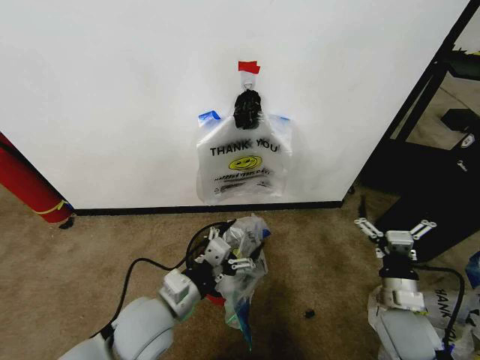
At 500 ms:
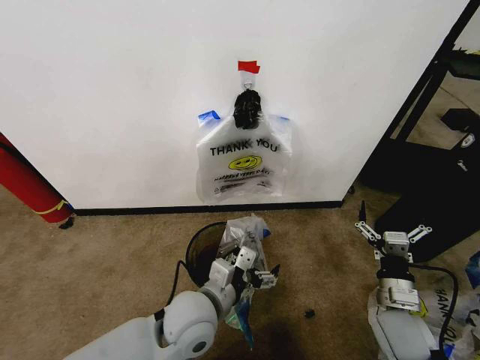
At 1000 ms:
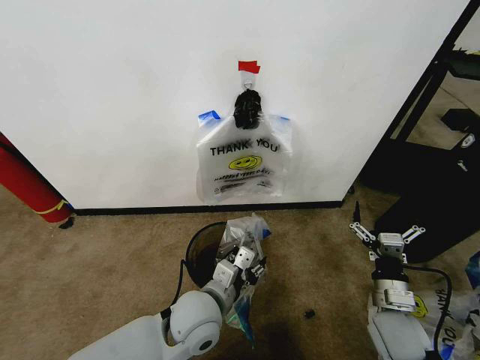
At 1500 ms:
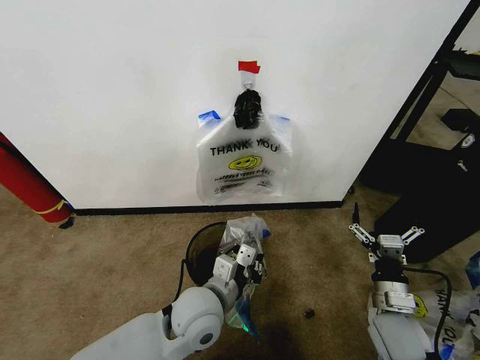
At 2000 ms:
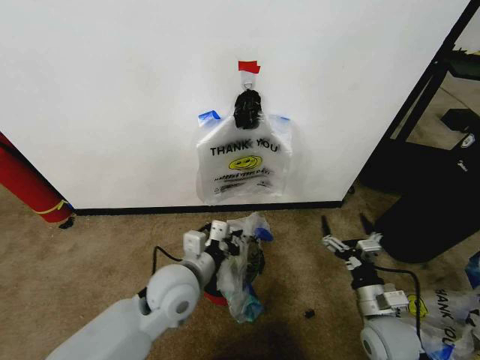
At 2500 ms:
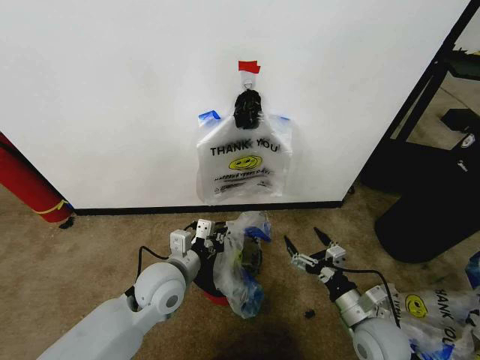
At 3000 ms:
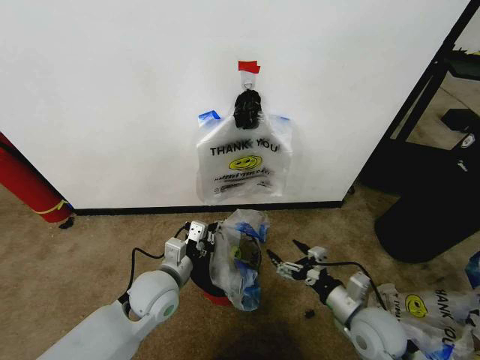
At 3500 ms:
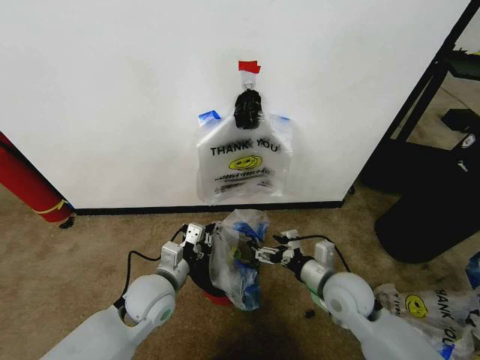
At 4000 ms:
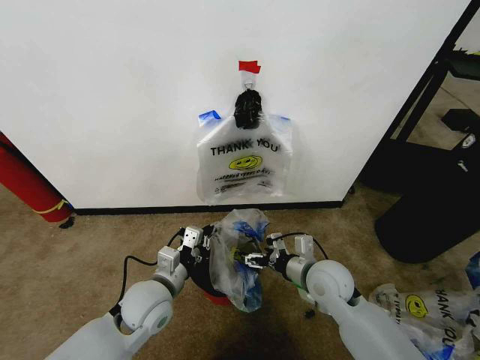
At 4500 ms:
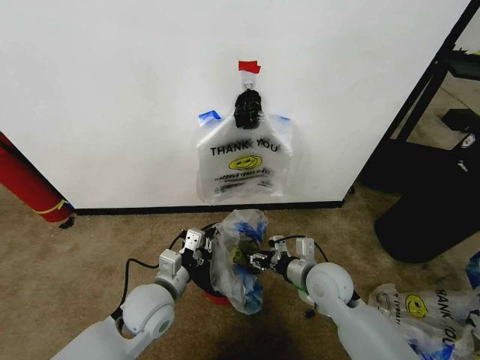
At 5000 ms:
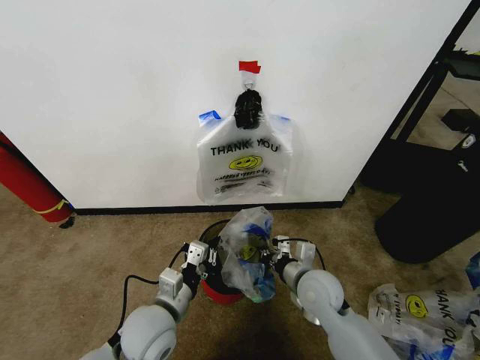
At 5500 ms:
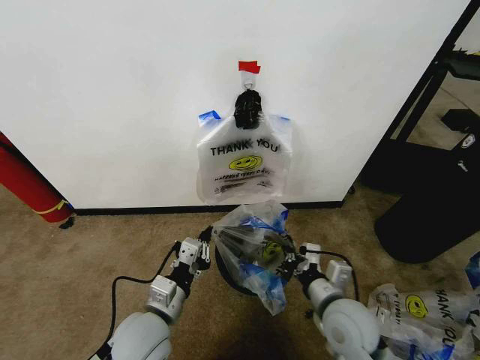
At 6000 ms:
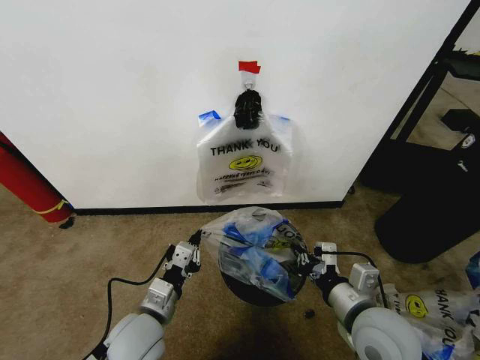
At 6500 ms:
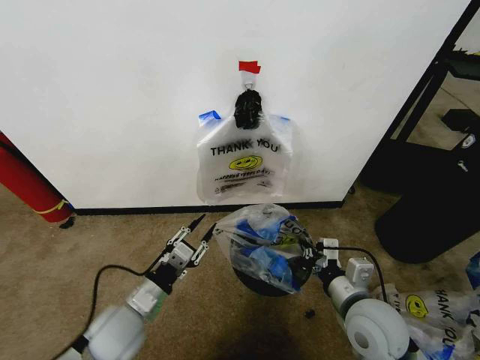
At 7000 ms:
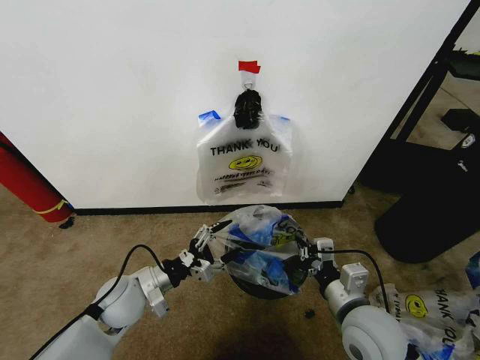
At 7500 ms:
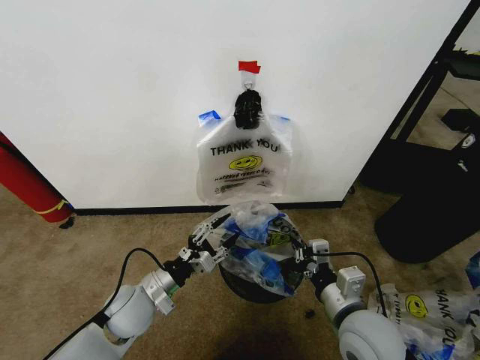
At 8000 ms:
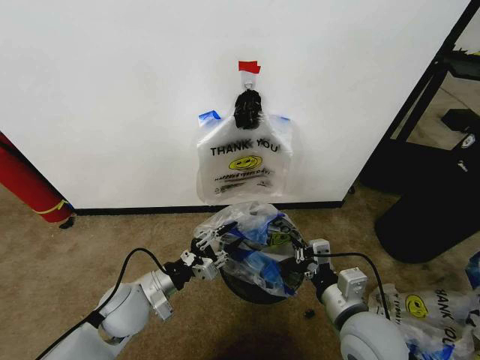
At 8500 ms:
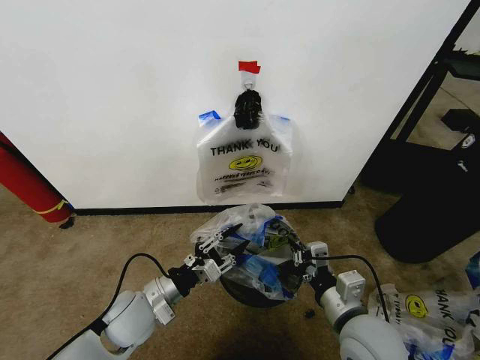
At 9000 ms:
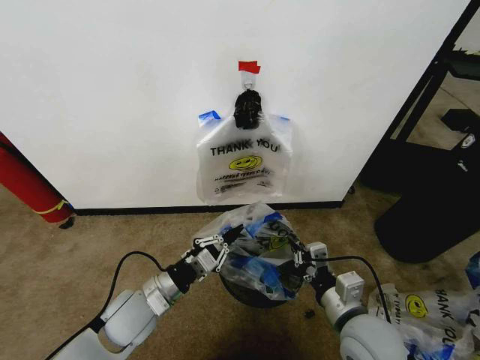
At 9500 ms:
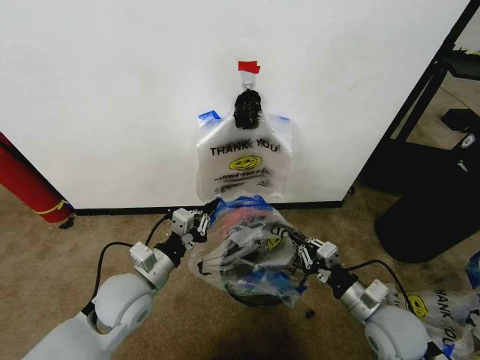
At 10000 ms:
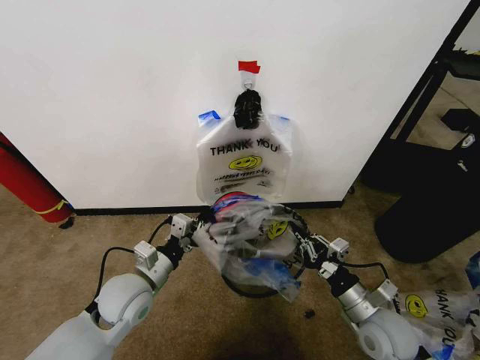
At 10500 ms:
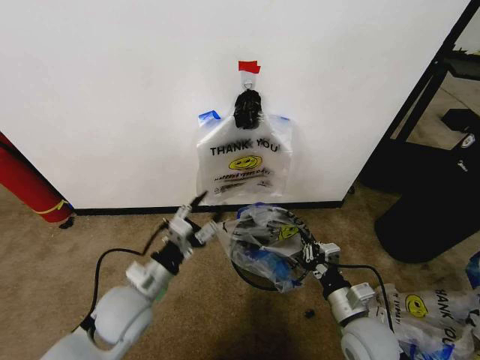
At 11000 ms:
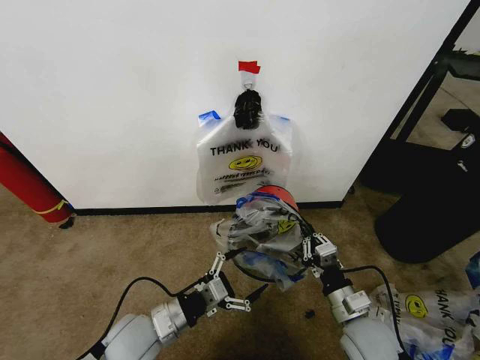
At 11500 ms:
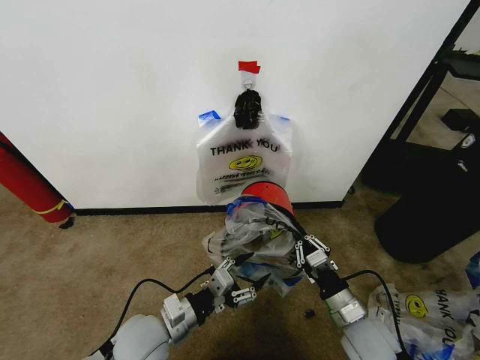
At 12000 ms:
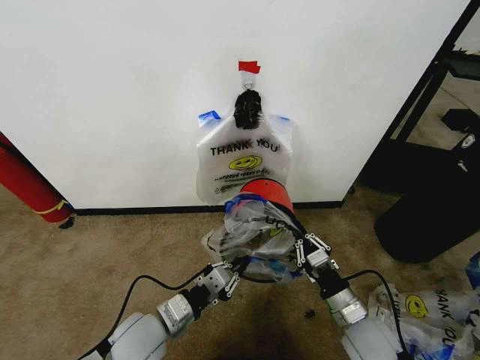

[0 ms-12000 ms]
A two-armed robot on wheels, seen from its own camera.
Task of the whole recording: Pick up the garbage bag from the wall and place it over the trash bin.
0 ms to 2000 ms: The left gripper heads forward, covering roughly 5 cm, and closes up.
2000 ms to 4000 ms: The left gripper travels to the left and downward by roughly 10 cm; the right gripper travels to the left, forward and upward by about 15 cm.
4000 ms to 6000 ms: The left gripper heads backward, covering about 5 cm. The right gripper is displaced backward and upward by about 15 cm, and closes.
6000 ms to 8000 ms: The left gripper moves forward, approximately 5 cm, and opens.
8000 ms to 10000 ms: The right gripper heads downward and to the right, covering roughly 10 cm. The left gripper closes its fingers.
10000 ms to 12000 ms: The left gripper travels backward by roughly 5 cm, and opens, then closes again.

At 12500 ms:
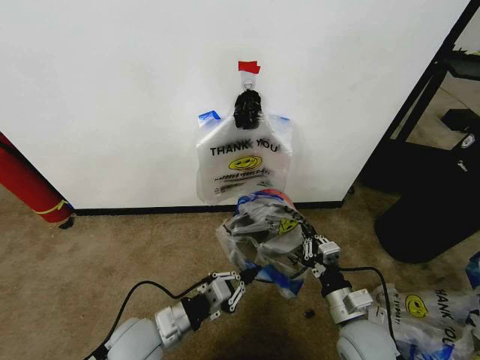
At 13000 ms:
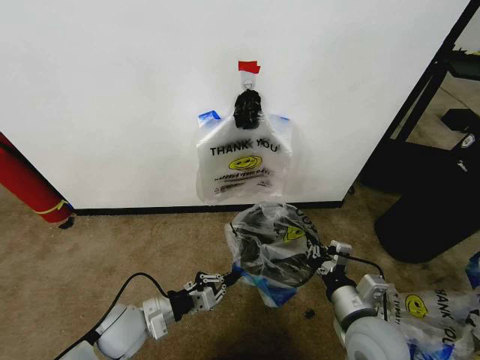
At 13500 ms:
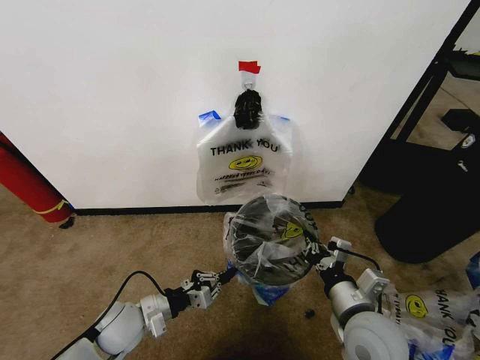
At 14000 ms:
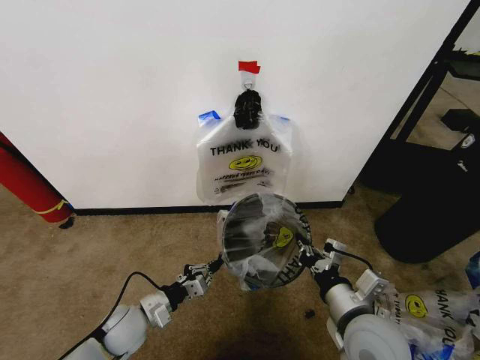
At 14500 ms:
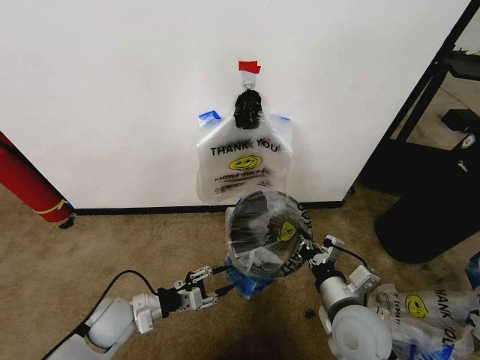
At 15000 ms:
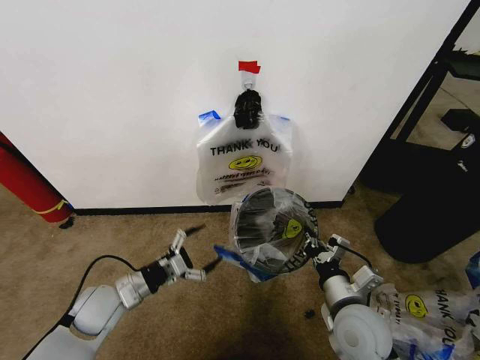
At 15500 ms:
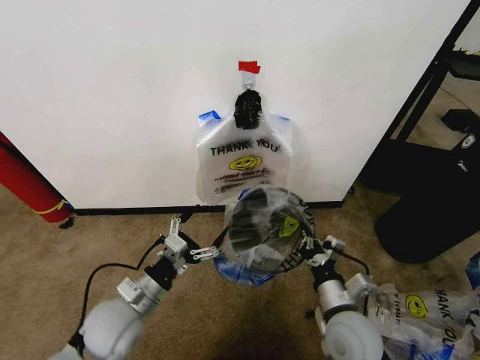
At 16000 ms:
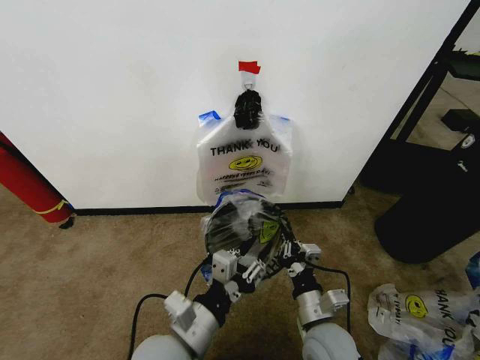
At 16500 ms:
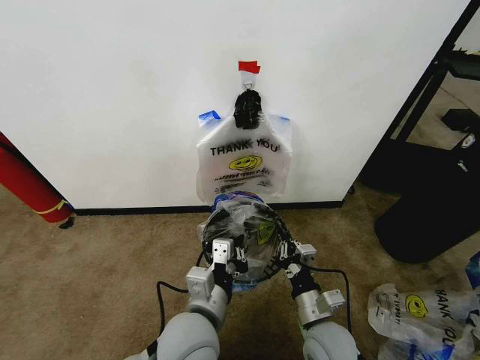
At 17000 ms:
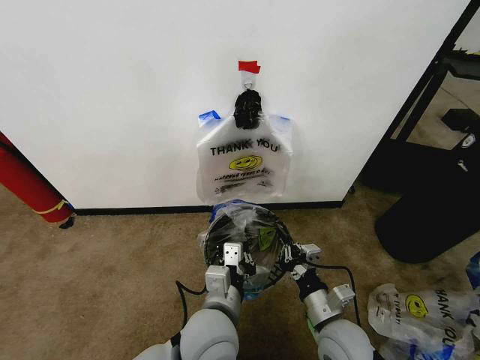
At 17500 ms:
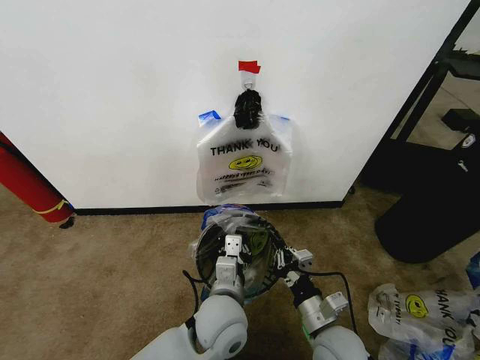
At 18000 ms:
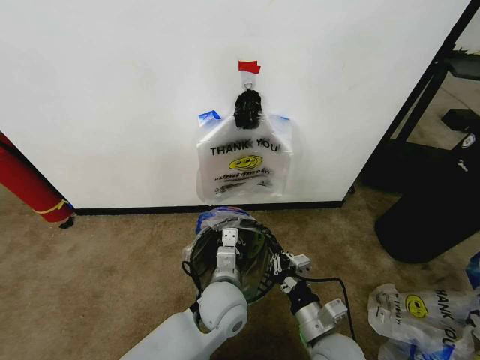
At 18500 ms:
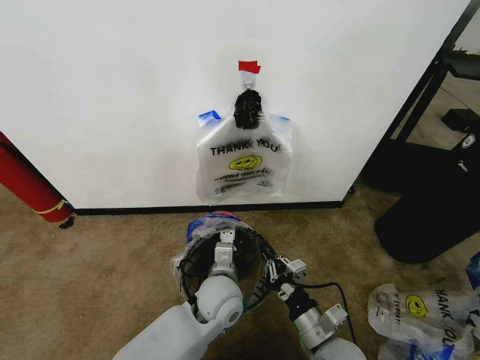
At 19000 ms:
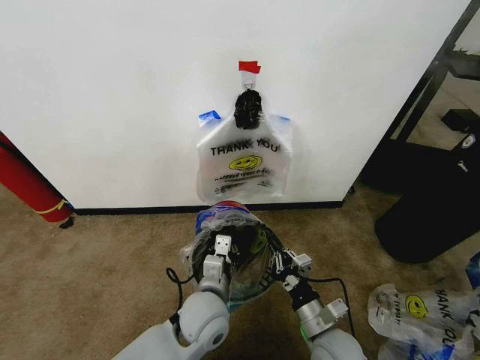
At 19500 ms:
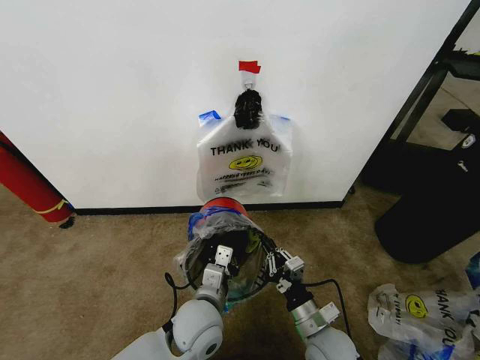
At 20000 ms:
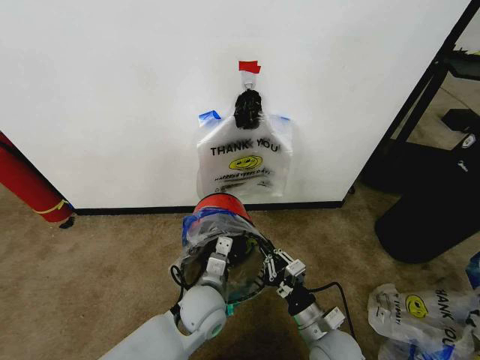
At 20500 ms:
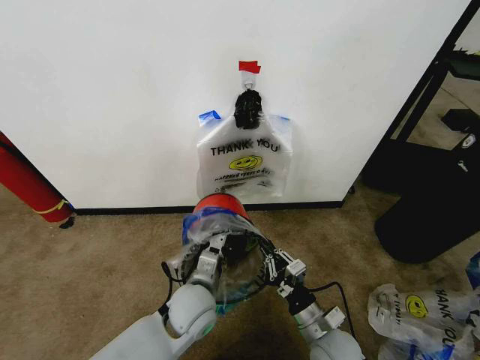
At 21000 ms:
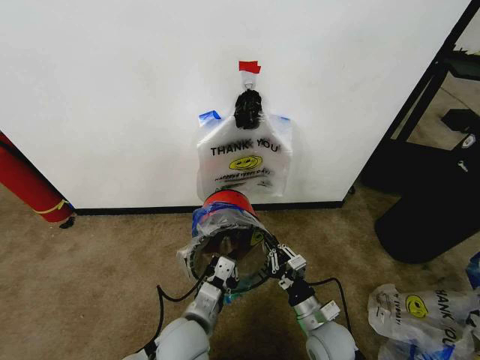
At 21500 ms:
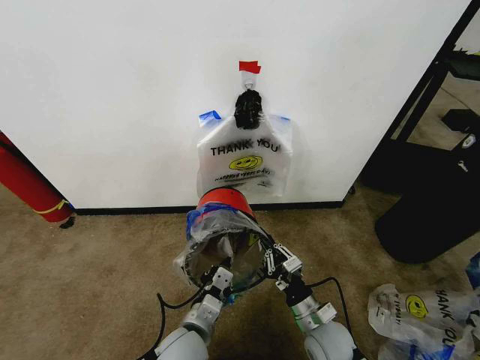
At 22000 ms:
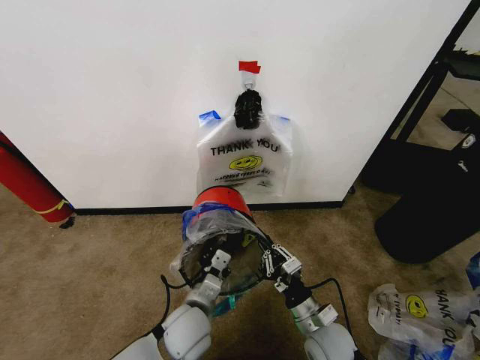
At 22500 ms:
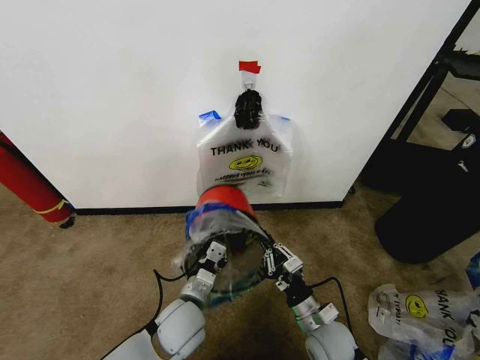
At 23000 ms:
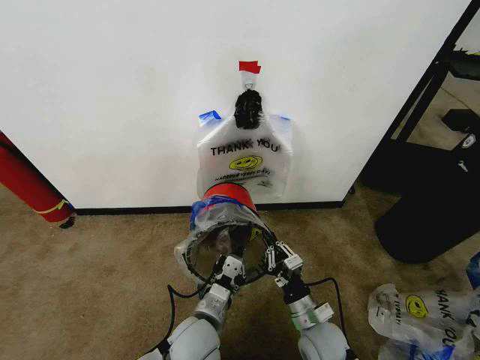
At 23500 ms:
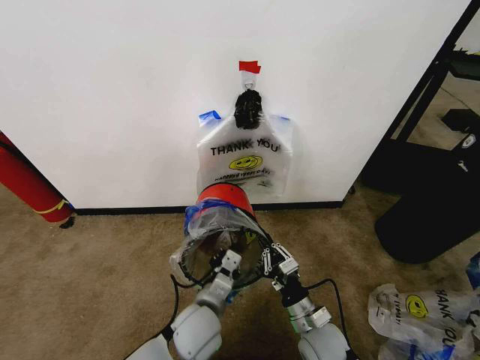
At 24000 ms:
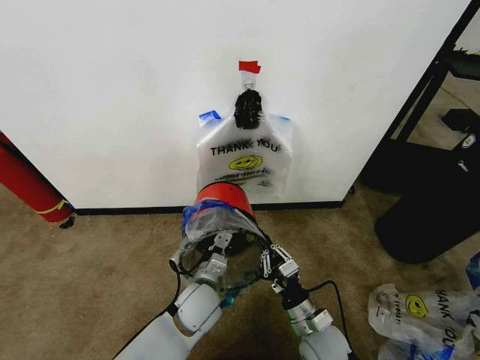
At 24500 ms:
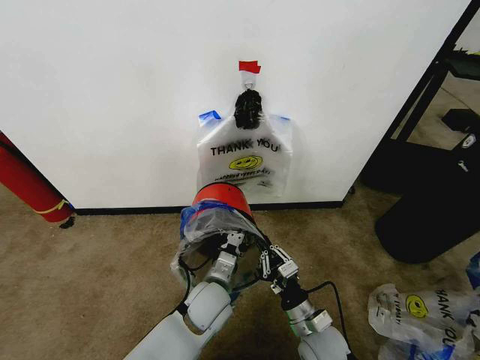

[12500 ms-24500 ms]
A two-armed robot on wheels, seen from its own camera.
Task of the whole recording: Pick up the garbage bag from the wall and place it over the trash bin.
12500 ms to 14500 ms: The left gripper shifts some 10 cm to the left and forward, and opens.
14500 ms to 16500 ms: The right gripper goes approximately 5 cm downward, while the left gripper travels to the right and upward by roughly 25 cm, and closes its fingers.
16500 ms to 18500 ms: The left gripper shifts about 15 cm forward and downward.
18500 ms to 20500 ms: The left gripper travels to the left by roughly 5 cm.
22500 ms to 24500 ms: The left gripper heads to the right, covering about 5 cm.

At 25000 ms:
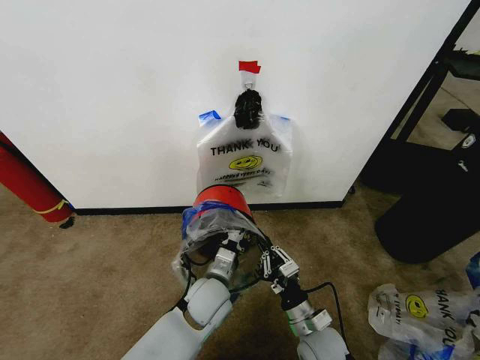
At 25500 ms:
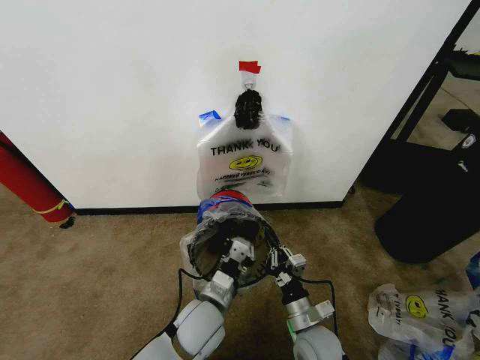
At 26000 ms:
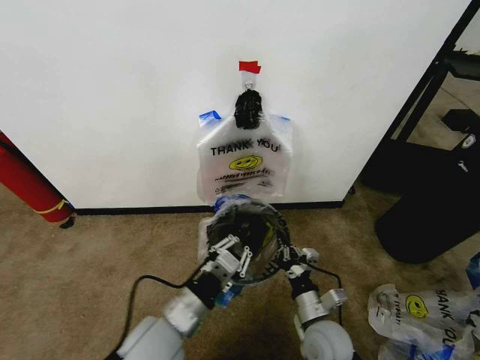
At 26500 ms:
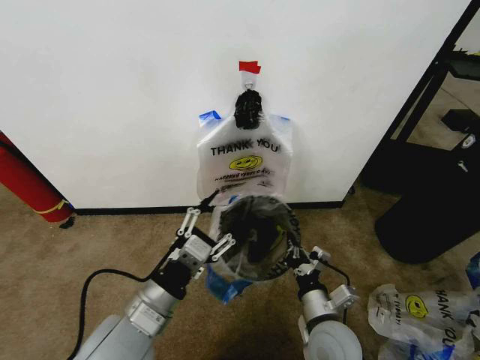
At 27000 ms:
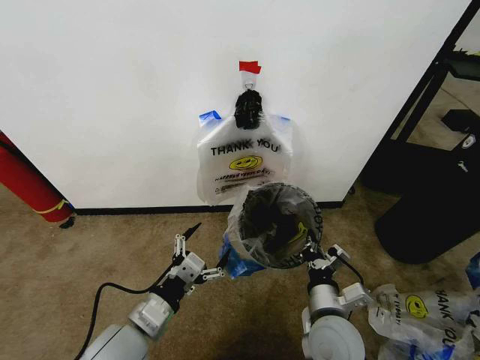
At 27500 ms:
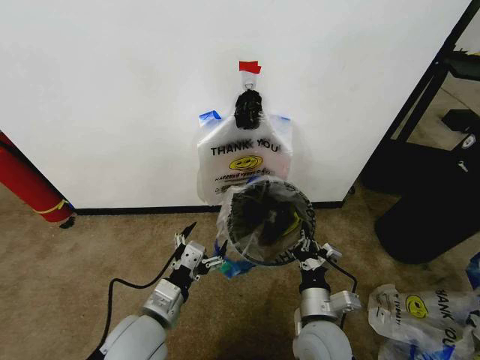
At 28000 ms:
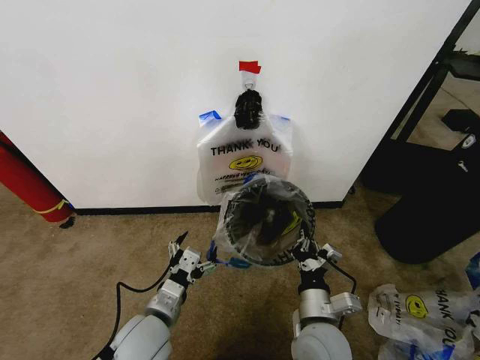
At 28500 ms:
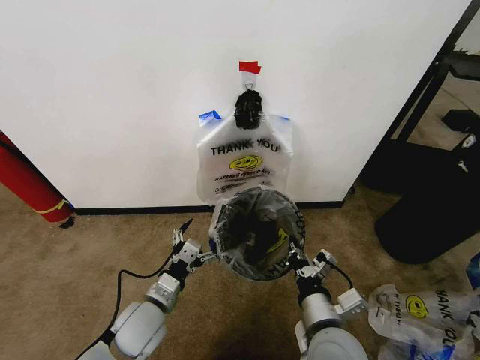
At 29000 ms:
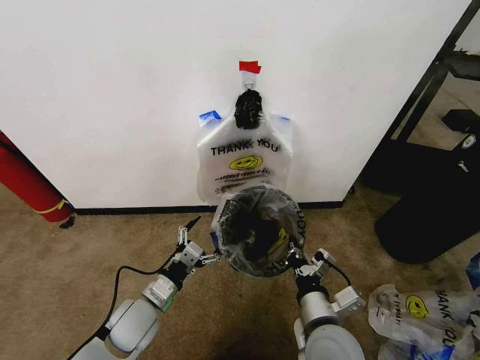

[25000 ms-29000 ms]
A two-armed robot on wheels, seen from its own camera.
Task of the whole recording: Pick up the garbage bag from the wall and place it over the trash bin.
25000 ms to 27000 ms: The left gripper heads to the left, backward and upward, covering about 20 cm, and opens up, while the right gripper travels upward by roughly 10 cm.
27000 ms to 29000 ms: The left gripper goes some 10 cm downward and forward.
